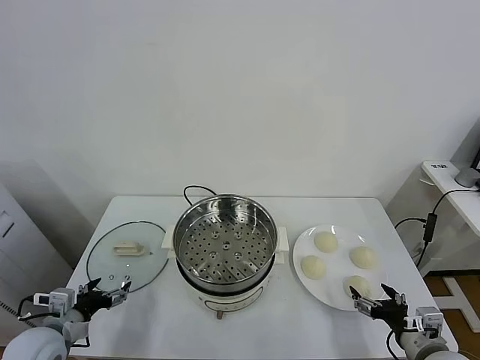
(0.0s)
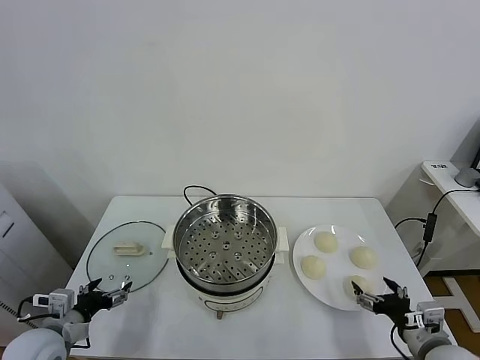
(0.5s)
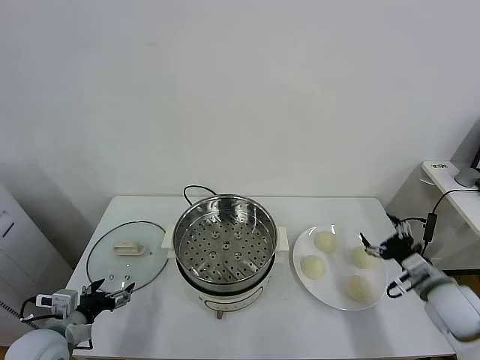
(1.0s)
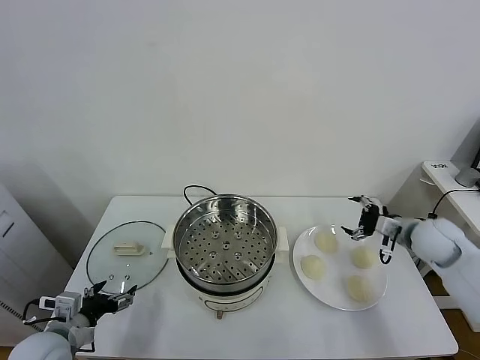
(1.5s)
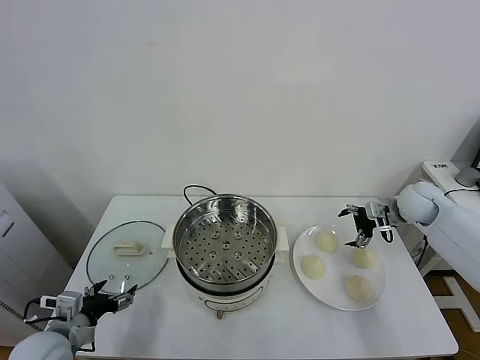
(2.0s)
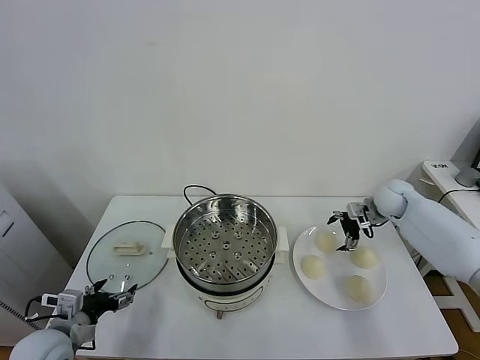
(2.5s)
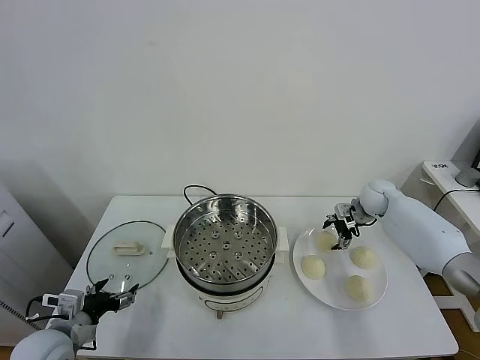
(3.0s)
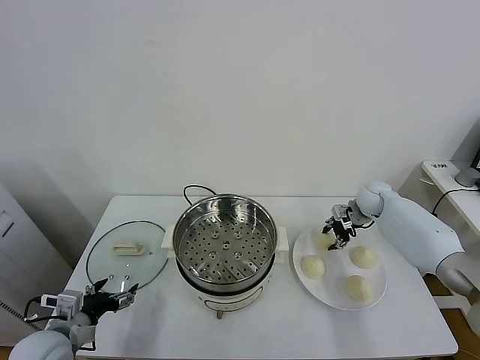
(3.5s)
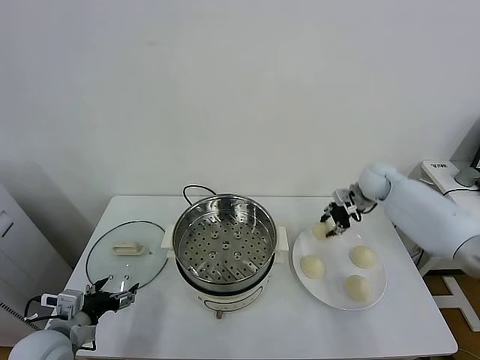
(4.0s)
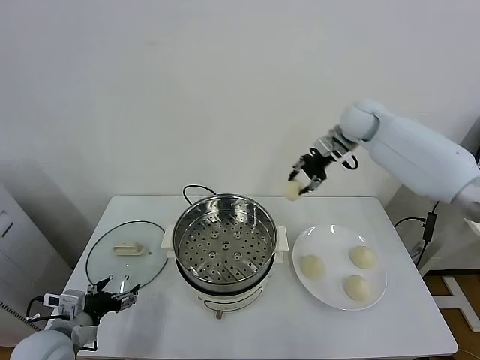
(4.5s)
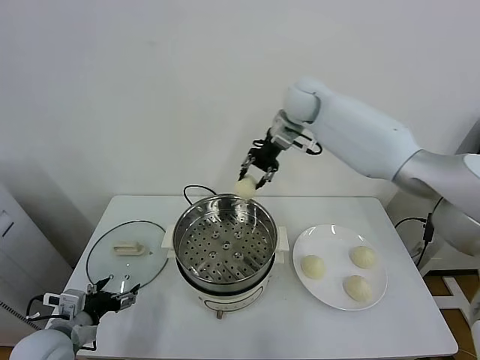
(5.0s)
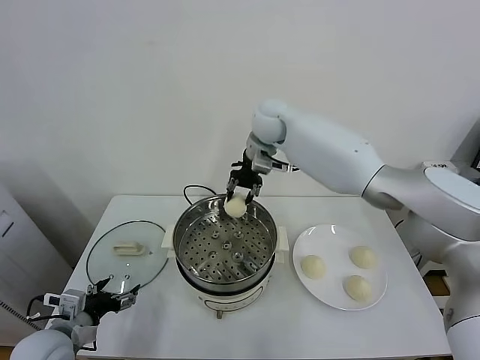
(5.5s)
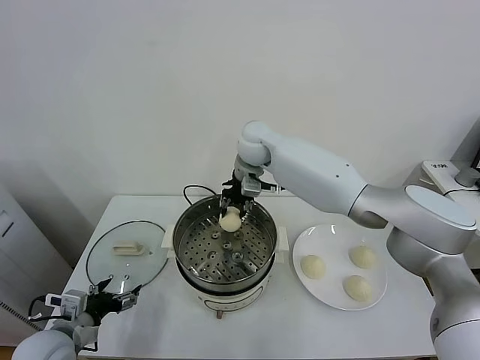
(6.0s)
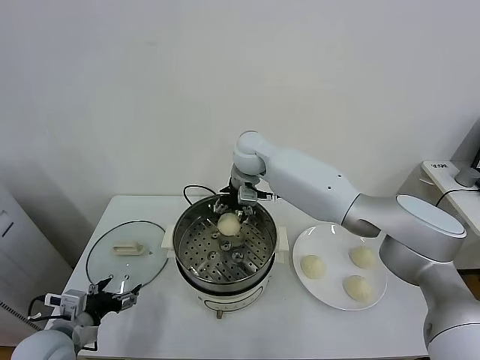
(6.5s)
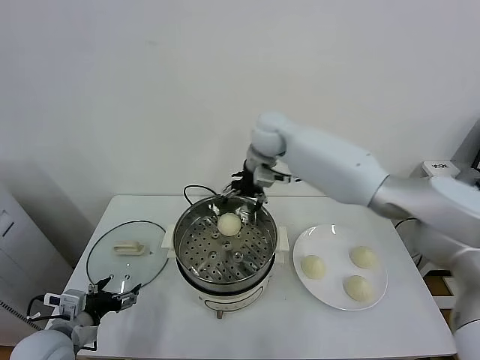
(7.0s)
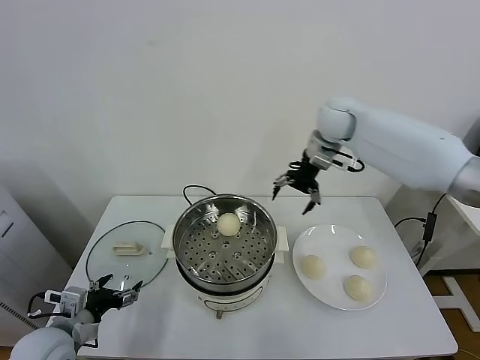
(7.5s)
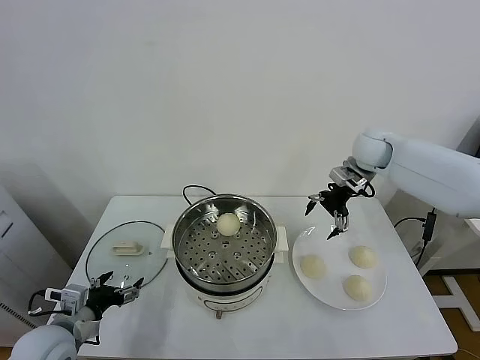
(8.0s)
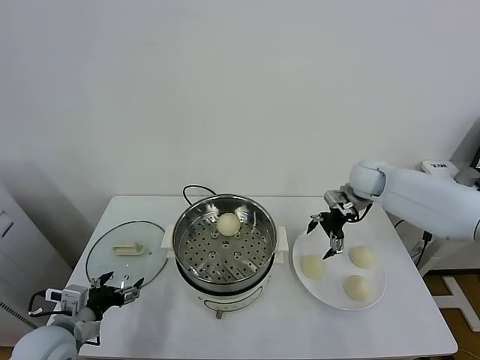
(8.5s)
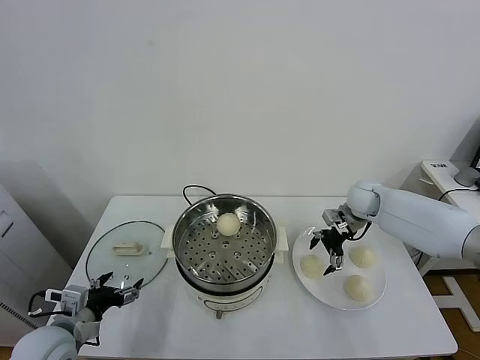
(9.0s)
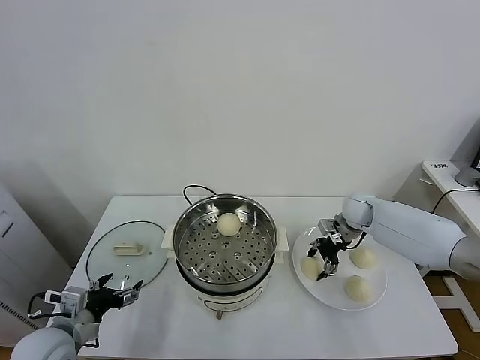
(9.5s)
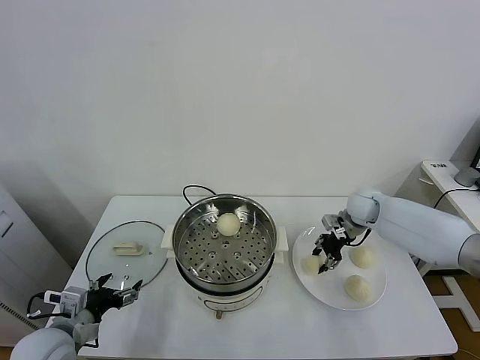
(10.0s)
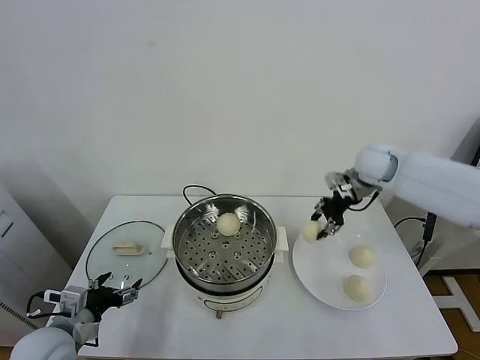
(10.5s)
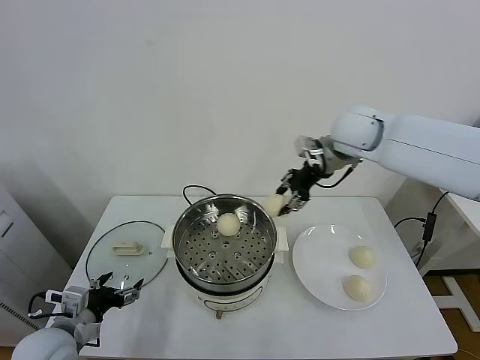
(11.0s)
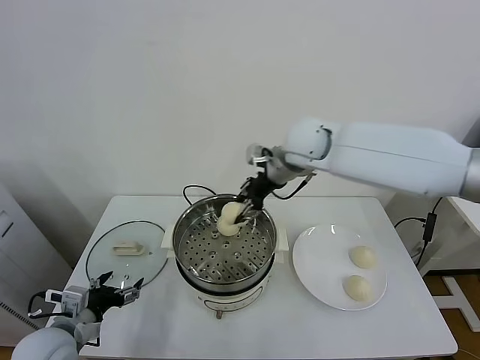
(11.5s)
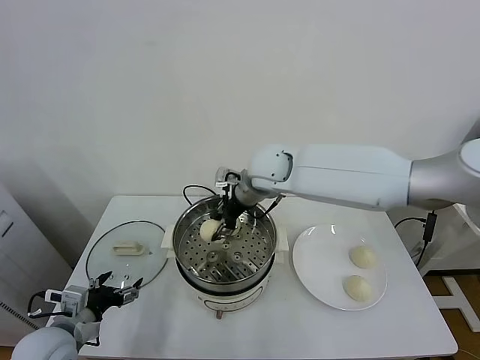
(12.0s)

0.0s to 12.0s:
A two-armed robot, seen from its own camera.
Task of the whole recording: take steamed baozi put them in steamer.
Step, 0.0s to 3.5s: Grasp the baozi in the plate with right gripper.
Step, 4.0s to 6.5s: Place the baozi on the steamer with right gripper.
Step, 7.0s to 9.5s: Grasp the baozi in the plate with right gripper.
2.0s to 4.0s: The right gripper moves to the left, forward and upward, about 10 cm, and closes.
4.0s to 6.0s: The right gripper is displaced to the left by some 30 cm.
6.0s to 8.0s: The right gripper is displaced to the right by approximately 30 cm, and opens up.
8.0s to 10.0s: The right gripper moves downward, approximately 15 cm, and closes its fingers.
10.0s to 12.0s: The right gripper travels to the left and upward by about 30 cm.

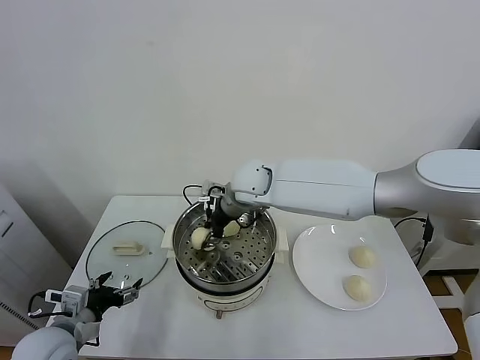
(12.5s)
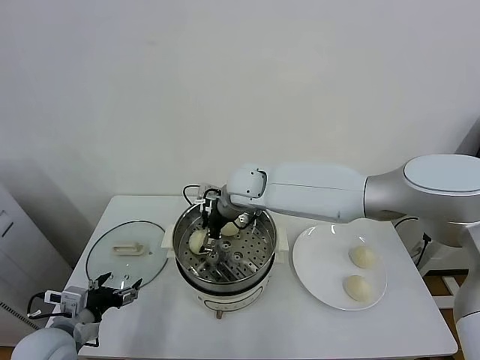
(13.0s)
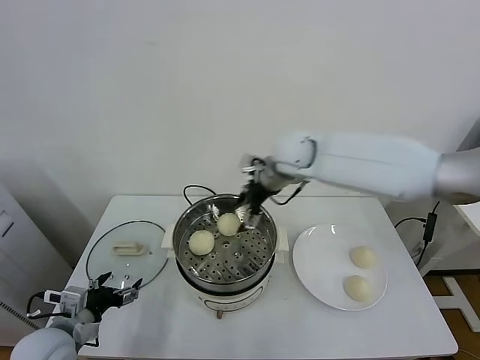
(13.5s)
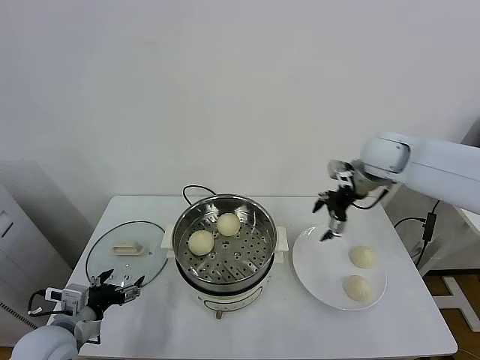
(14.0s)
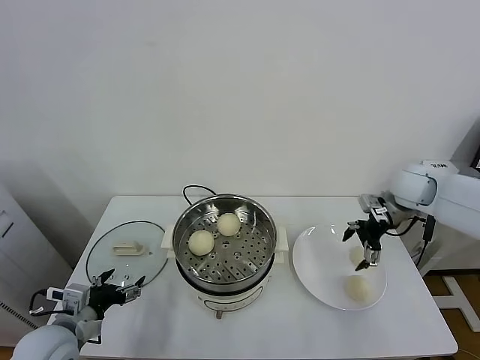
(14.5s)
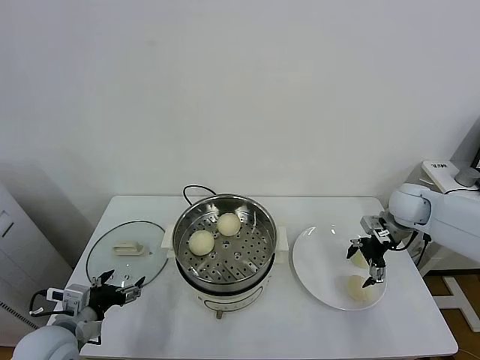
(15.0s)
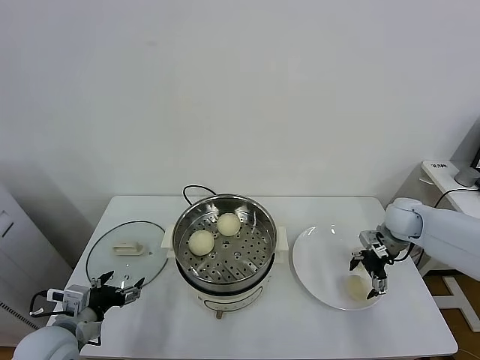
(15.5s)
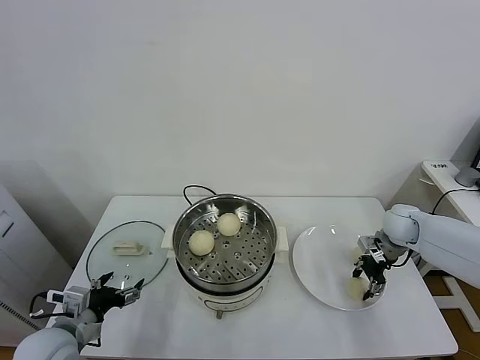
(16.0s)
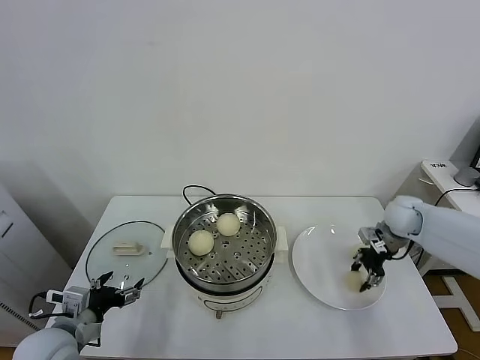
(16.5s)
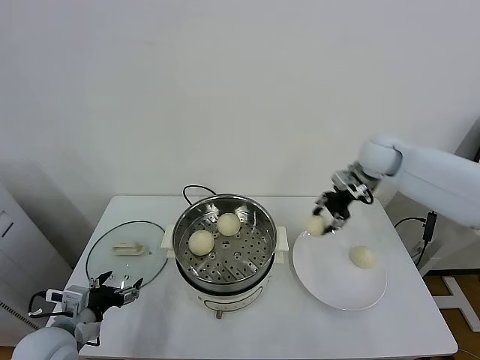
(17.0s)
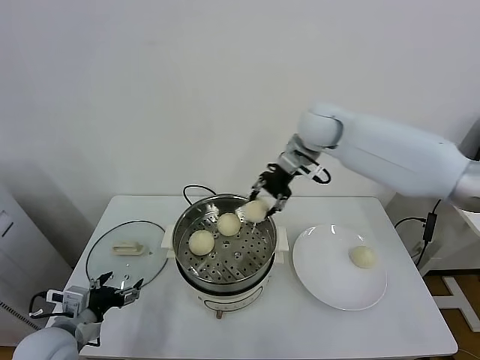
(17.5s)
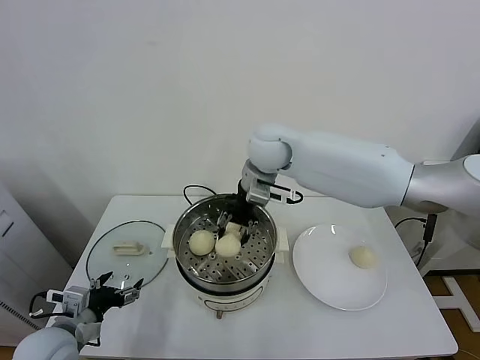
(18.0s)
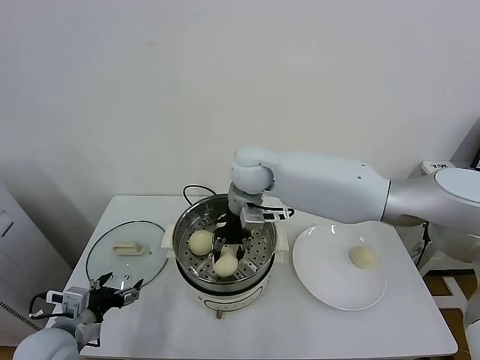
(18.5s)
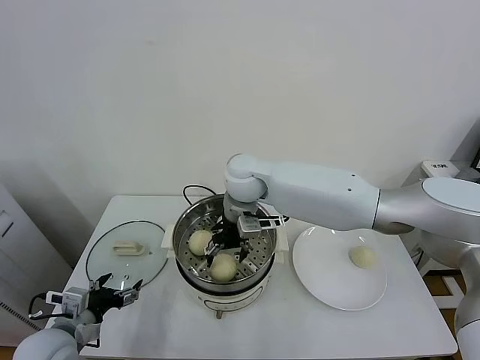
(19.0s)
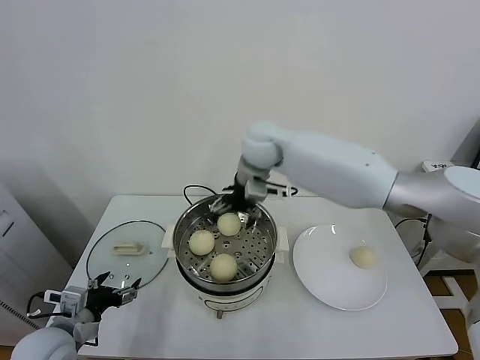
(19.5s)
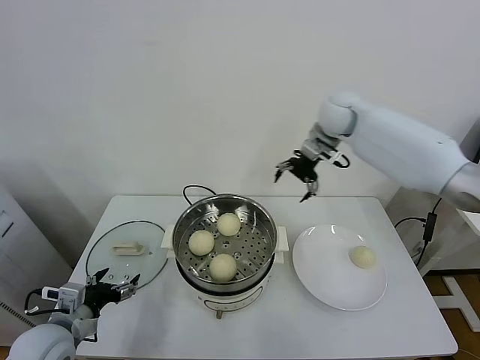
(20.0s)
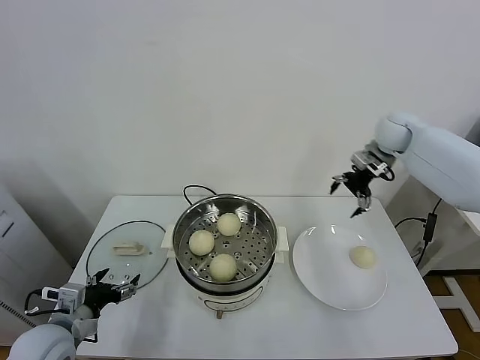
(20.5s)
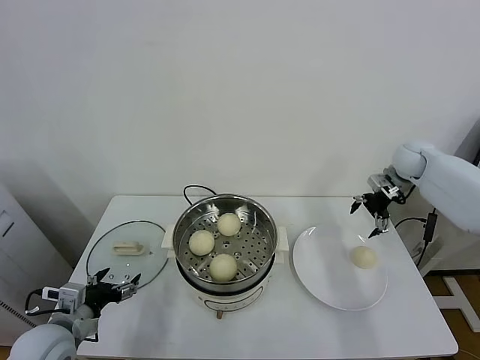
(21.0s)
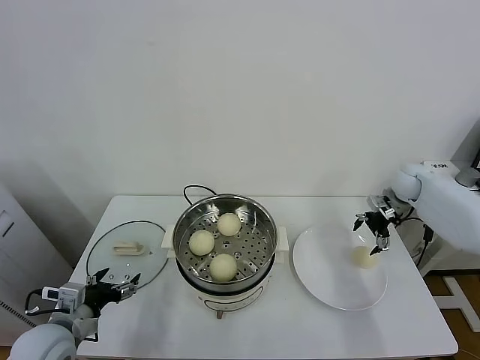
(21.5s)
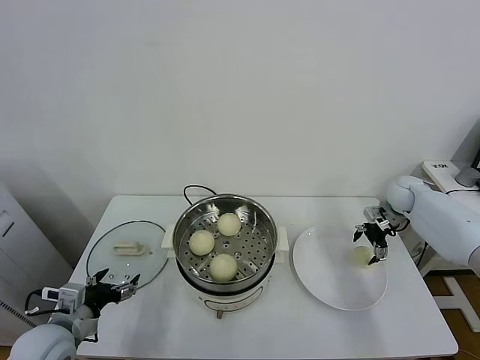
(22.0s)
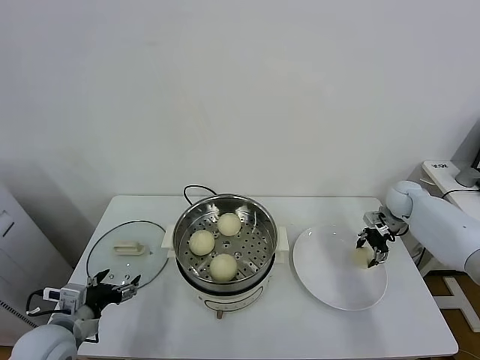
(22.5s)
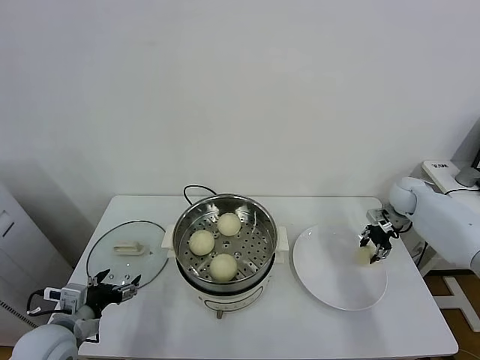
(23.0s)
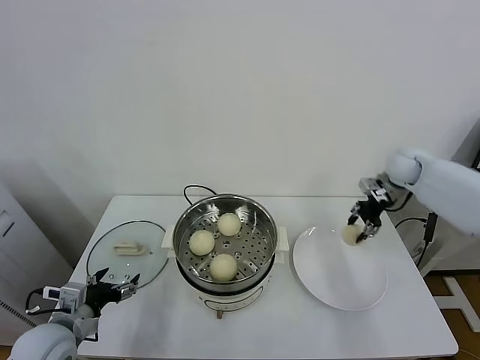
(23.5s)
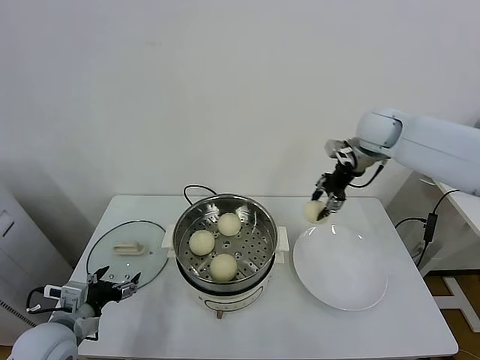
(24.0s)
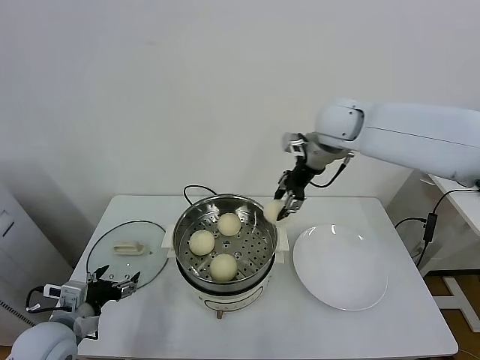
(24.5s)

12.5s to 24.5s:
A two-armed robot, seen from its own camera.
Task of the whole recording: take steamed baozi put them in steamer.
Step, 13.5s to 16.0s: Grasp the baozi in the plate with right gripper.
Step, 16.5s to 19.0s: Place the baozi on the steamer with right gripper.
Step, 19.5s to 22.5s: Grasp the baozi in the plate with right gripper.
12.5s to 14.5s: The right gripper heads to the right, covering about 35 cm, and opens up.
14.5s to 16.5s: The right gripper heads downward, covering roughly 5 cm, and closes up.
16.5s to 18.5s: The right gripper heads to the left, covering approximately 40 cm.
18.5s to 20.5s: The right gripper travels to the right by roughly 35 cm, and opens its fingers.
20.5s to 22.5s: The right gripper moves downward and to the right, approximately 20 cm, and closes its fingers.
22.5s to 24.5s: The right gripper goes some 35 cm to the left and upward.

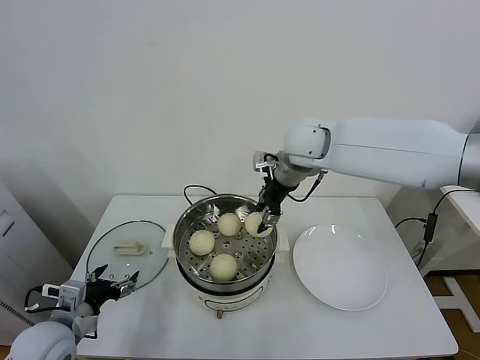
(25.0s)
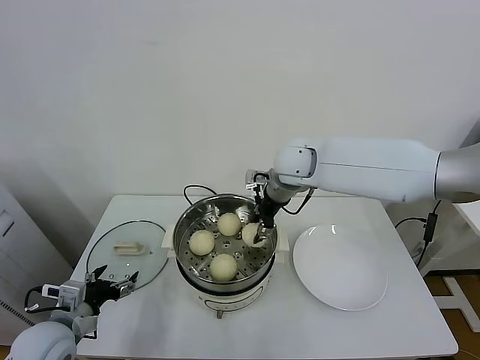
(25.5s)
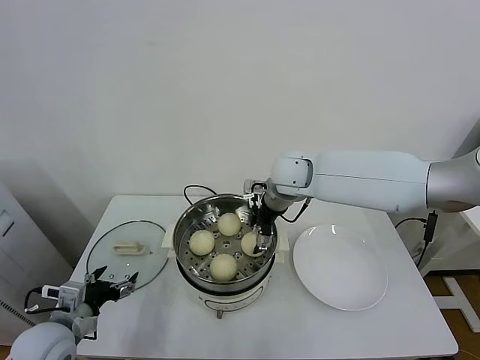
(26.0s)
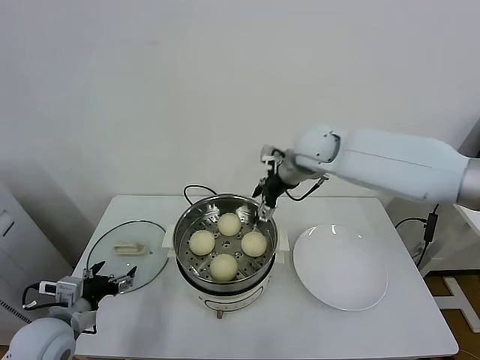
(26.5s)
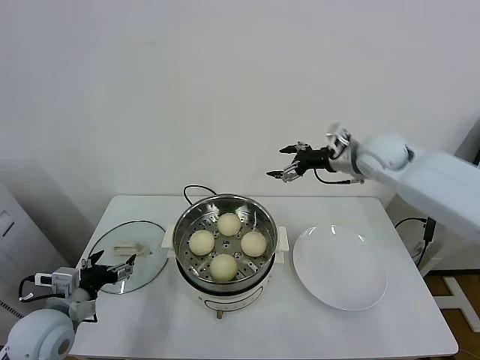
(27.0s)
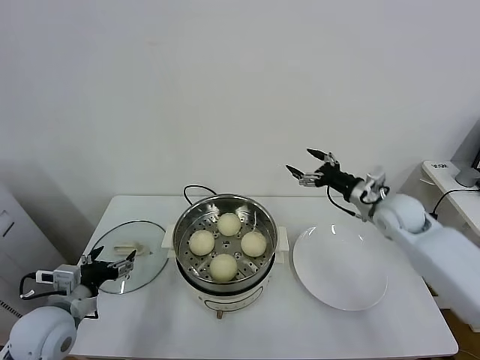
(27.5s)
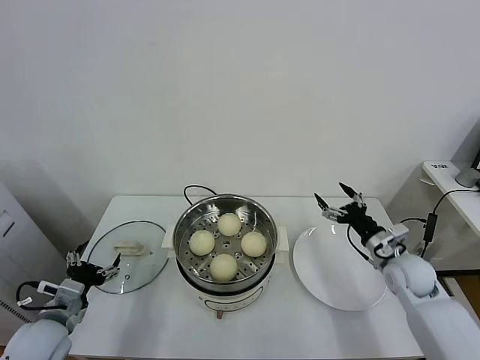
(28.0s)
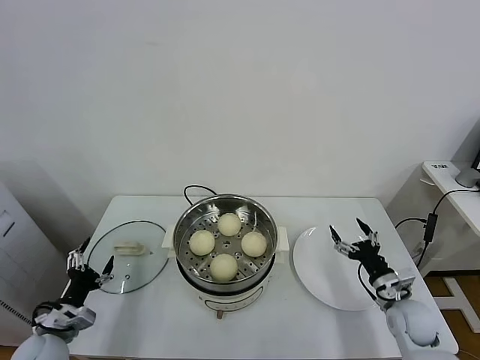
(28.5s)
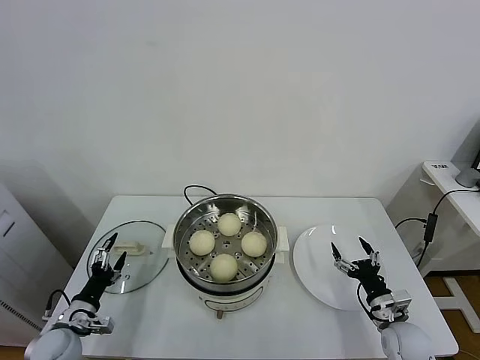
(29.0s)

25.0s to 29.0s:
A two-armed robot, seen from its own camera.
Task of the whole recording: take steamed baozi put them in steamer.
25.0s to 27.0s: The right gripper travels to the right by some 15 cm, and opens its fingers.
27.0s to 29.0s: The right gripper is displaced downward and backward by approximately 40 cm; the left gripper travels downward by roughly 15 cm.
